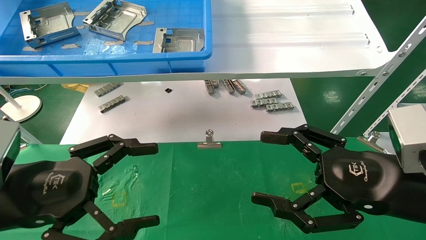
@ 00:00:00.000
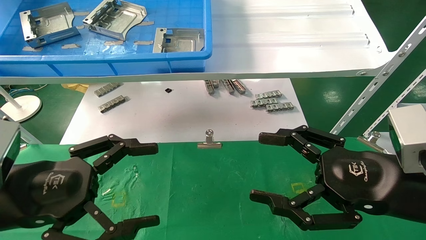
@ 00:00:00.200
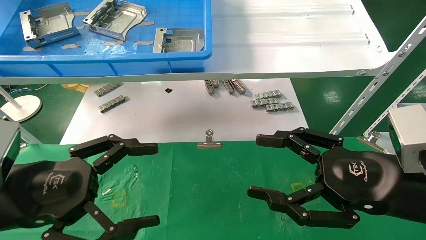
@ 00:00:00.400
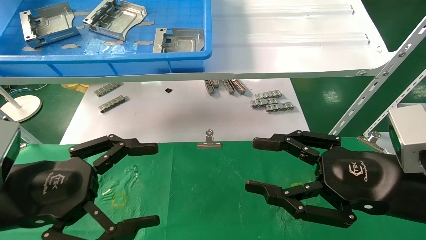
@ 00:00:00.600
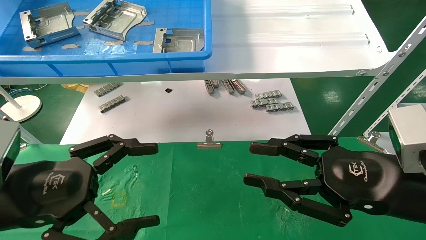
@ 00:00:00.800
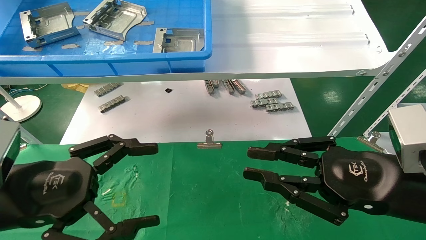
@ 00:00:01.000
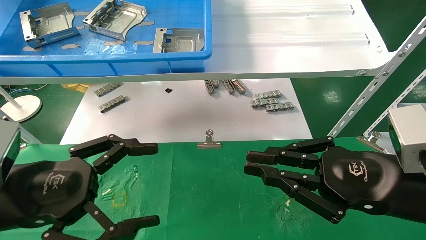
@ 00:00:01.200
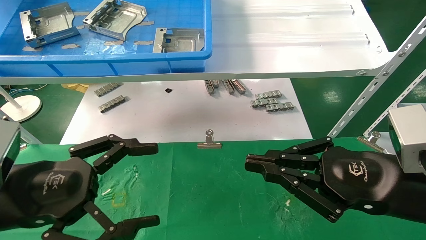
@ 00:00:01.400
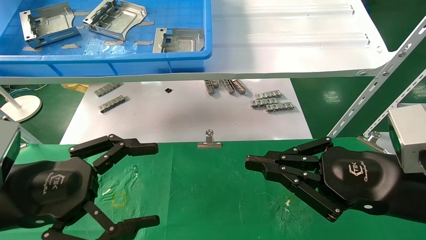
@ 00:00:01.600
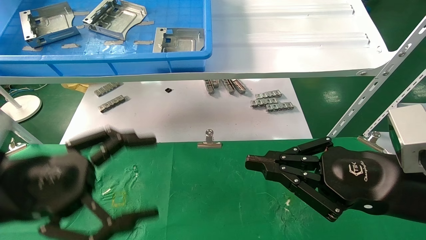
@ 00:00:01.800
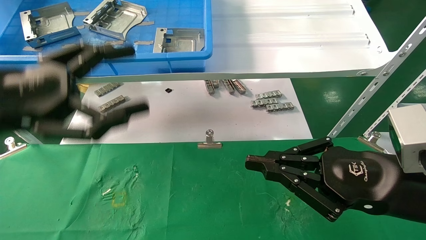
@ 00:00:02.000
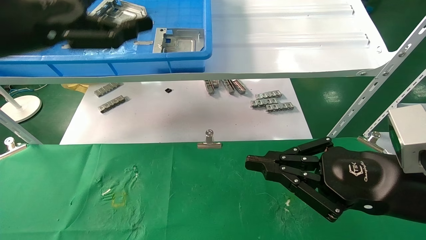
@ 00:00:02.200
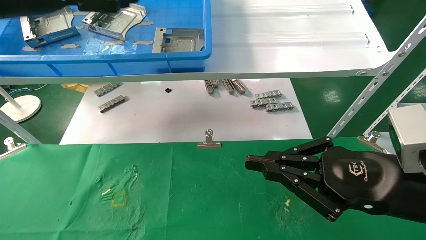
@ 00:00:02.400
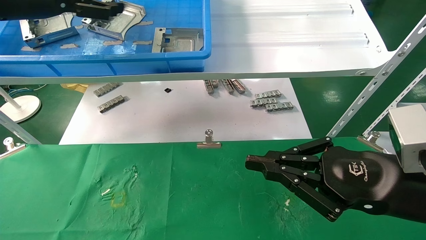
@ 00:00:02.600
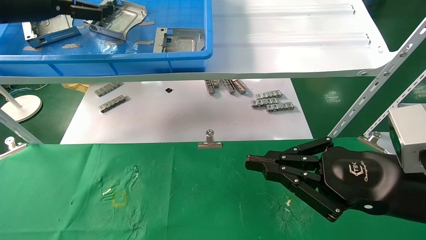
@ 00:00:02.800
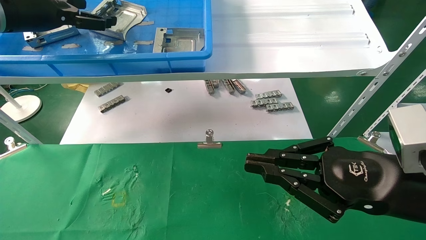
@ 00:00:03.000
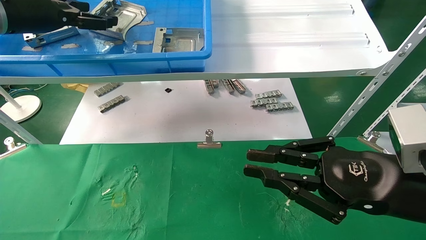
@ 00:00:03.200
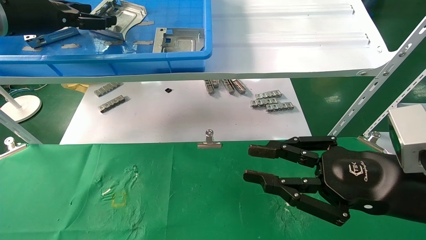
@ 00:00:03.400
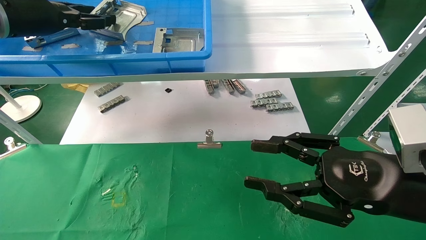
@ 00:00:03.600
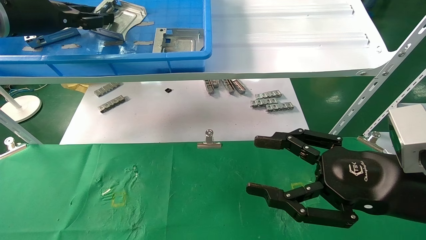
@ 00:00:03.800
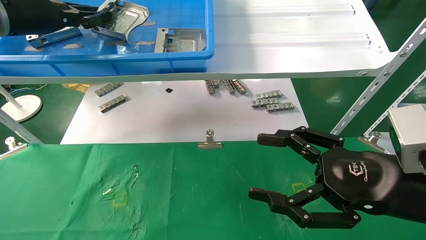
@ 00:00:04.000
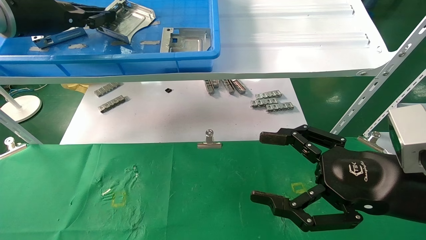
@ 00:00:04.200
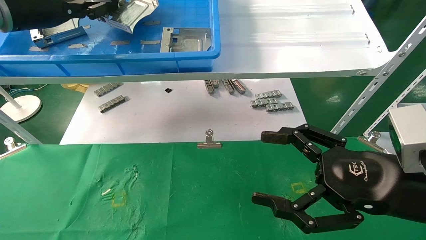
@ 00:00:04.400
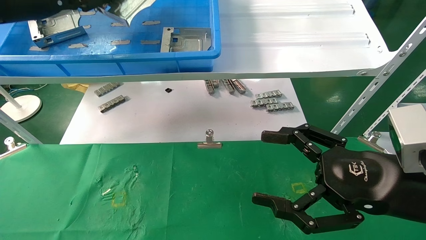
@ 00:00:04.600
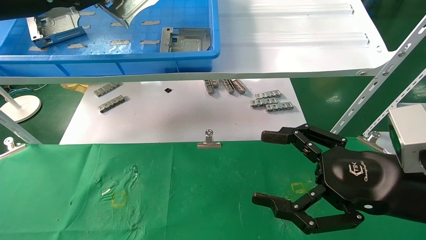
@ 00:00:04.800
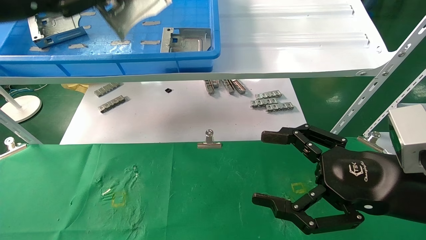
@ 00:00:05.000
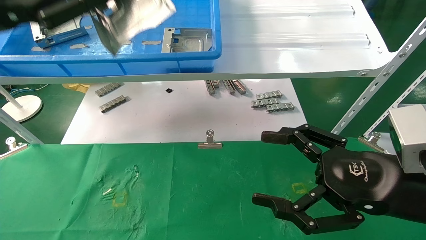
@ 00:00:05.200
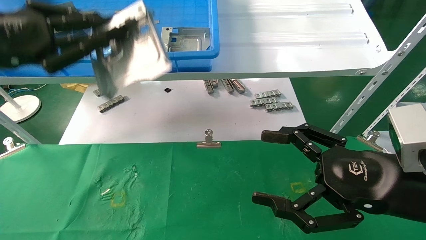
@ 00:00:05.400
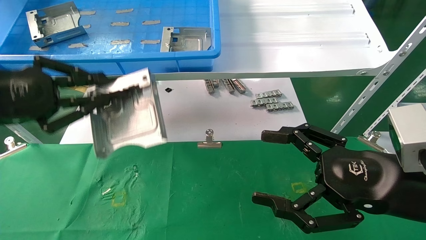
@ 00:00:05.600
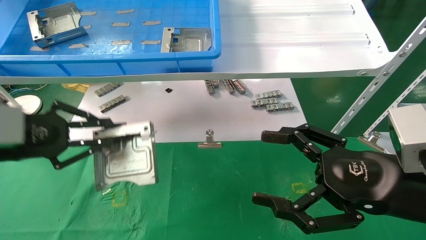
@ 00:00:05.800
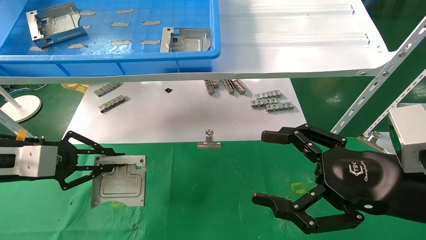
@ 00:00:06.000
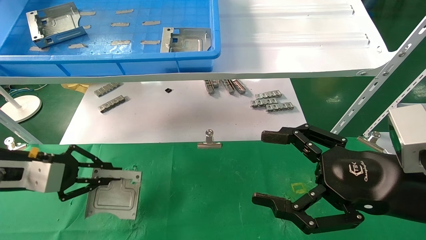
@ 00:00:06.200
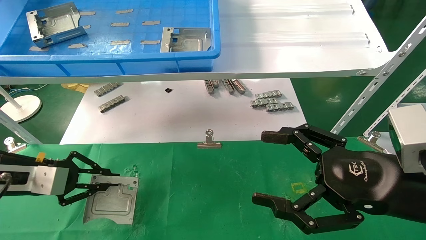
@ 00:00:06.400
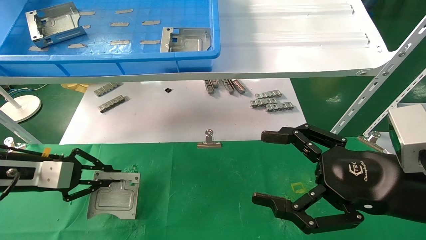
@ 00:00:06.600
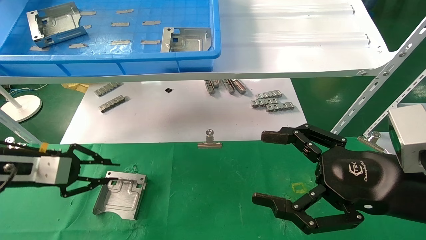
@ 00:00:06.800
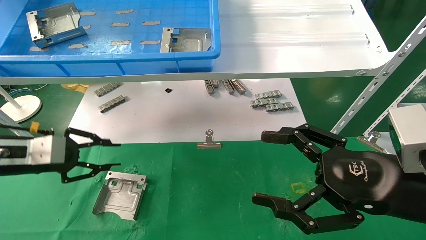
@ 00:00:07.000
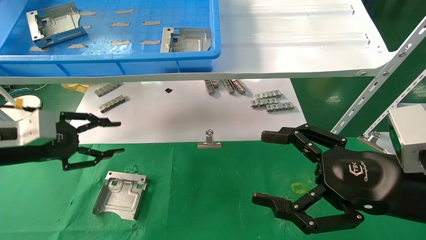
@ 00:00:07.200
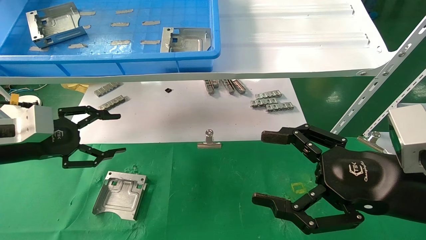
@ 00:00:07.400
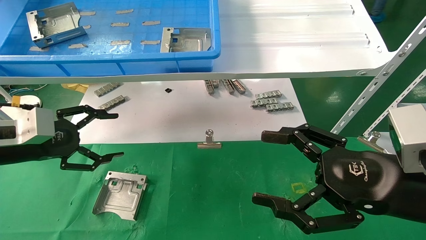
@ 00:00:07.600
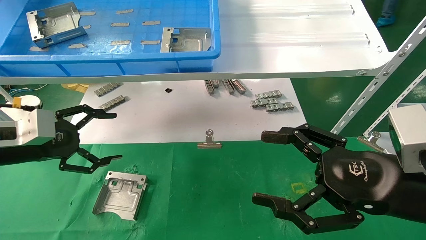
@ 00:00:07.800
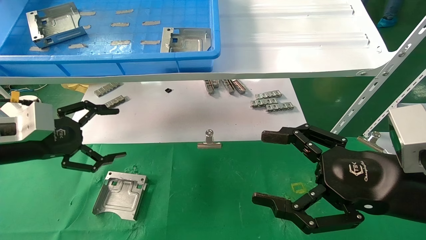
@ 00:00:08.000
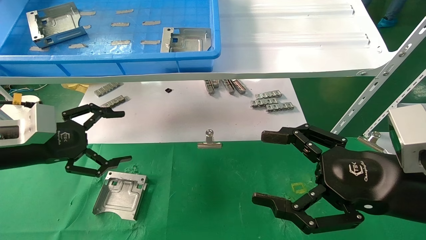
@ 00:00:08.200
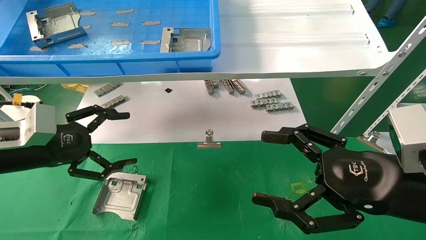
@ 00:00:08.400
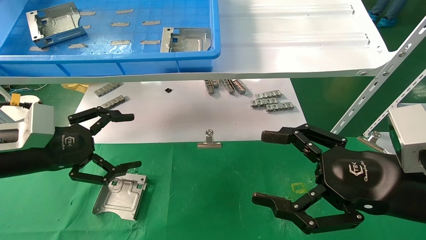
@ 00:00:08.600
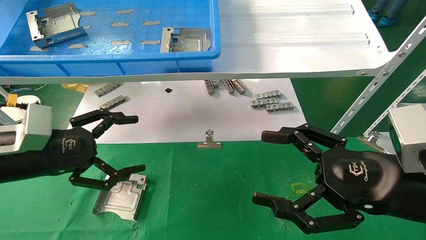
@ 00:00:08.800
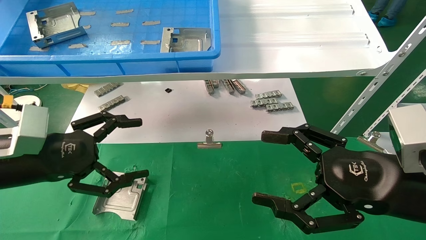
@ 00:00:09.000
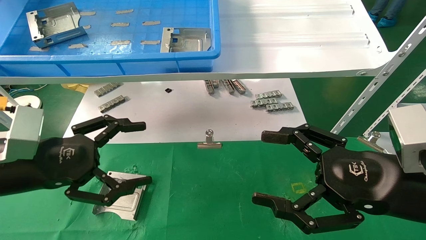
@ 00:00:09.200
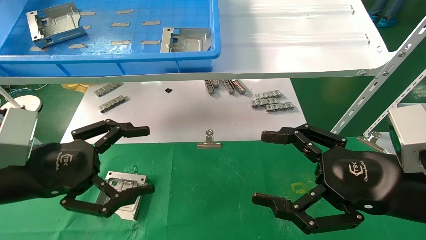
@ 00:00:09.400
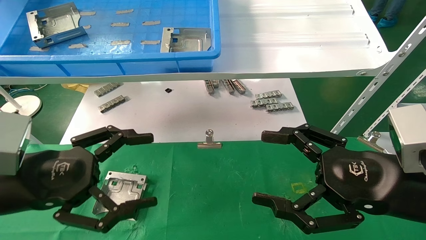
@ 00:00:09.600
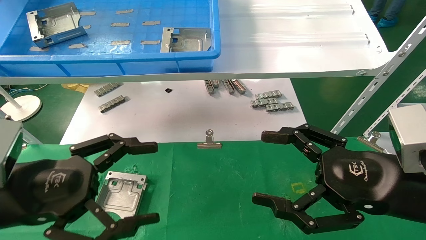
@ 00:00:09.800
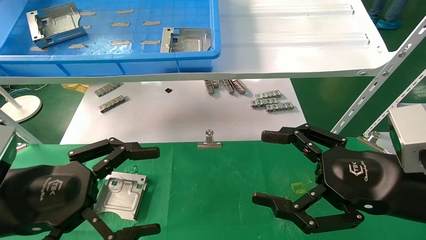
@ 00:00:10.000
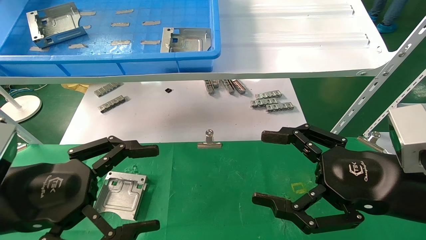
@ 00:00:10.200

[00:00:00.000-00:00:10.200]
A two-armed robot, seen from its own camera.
Task of the whole recording: use the mechanical arm to pick up the parts and place them on the table.
Step, 00:00:02.000 to 00:00:04.000: Pick up the hard drive bracket from the feeding area.
Step, 00:00:04.200 to 00:00:07.200: Place the hard drive bracket into the box.
00:00:00.000 to 00:00:01.400: The right gripper closes.
00:00:01.400 to 00:00:03.000: The left gripper moves upward and forward, roughly 30 cm.
00:00:03.000 to 00:00:04.400: The left gripper closes. The right gripper opens up.
00:00:04.400 to 00:00:05.800: The left gripper moves downward and backward, roughly 20 cm.
00:00:07.200 to 00:00:08.800: The left gripper heads to the right, covering approximately 5 cm, and opens.
00:00:08.800 to 00:00:10.200: The left gripper moves backward, approximately 10 cm.

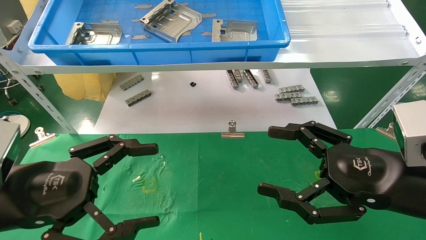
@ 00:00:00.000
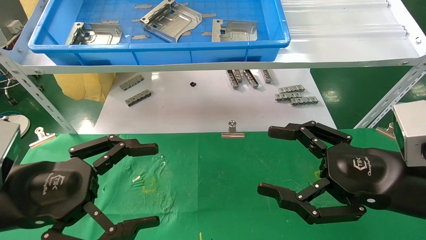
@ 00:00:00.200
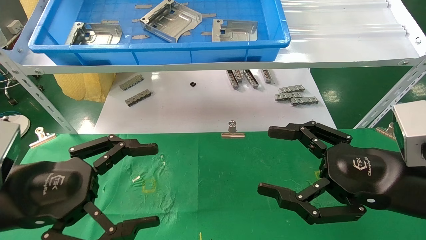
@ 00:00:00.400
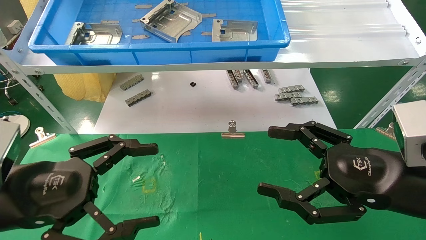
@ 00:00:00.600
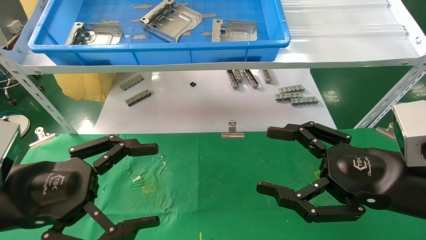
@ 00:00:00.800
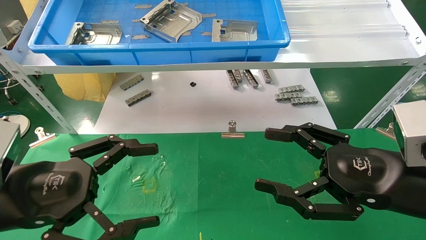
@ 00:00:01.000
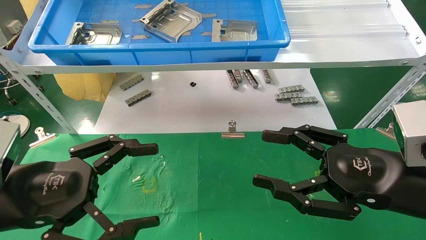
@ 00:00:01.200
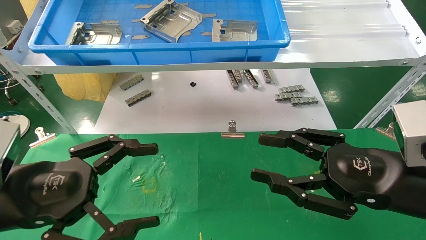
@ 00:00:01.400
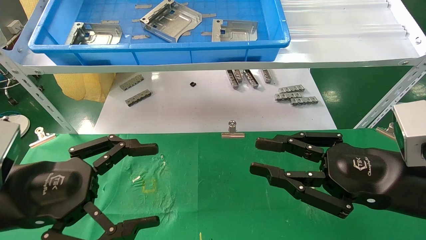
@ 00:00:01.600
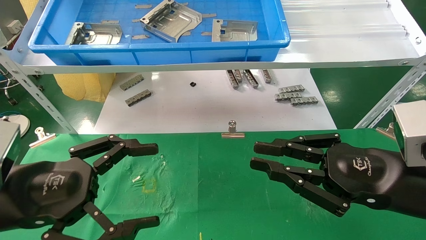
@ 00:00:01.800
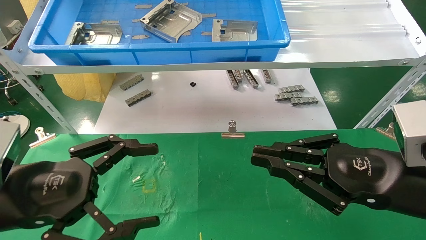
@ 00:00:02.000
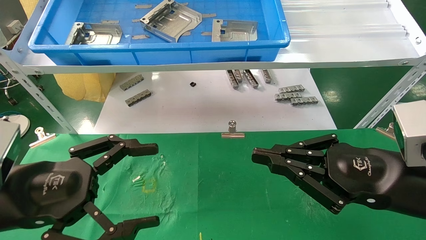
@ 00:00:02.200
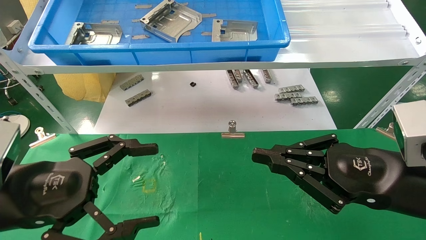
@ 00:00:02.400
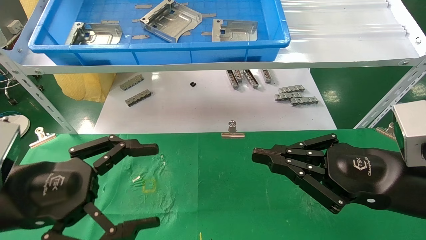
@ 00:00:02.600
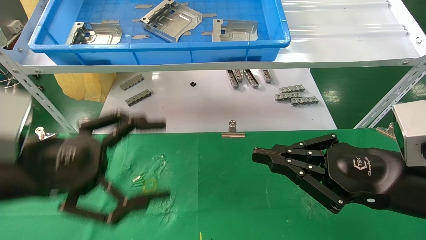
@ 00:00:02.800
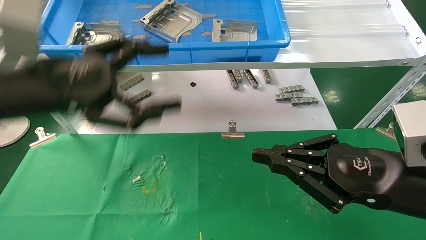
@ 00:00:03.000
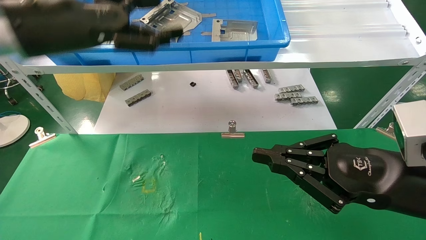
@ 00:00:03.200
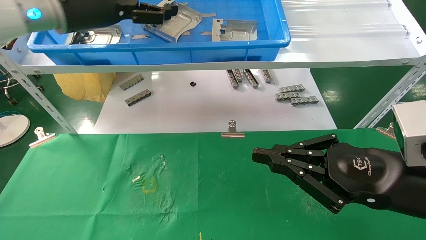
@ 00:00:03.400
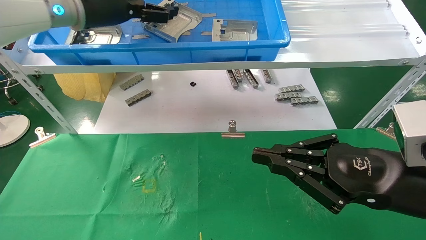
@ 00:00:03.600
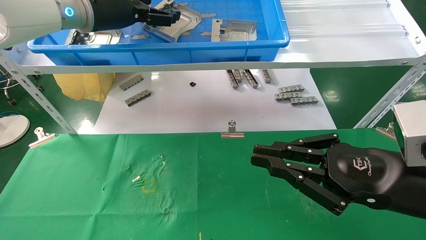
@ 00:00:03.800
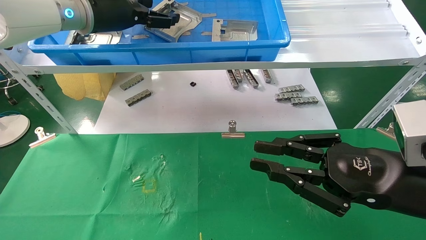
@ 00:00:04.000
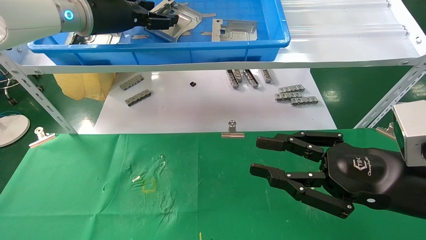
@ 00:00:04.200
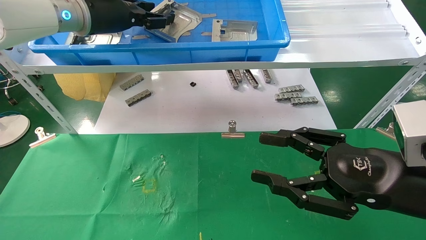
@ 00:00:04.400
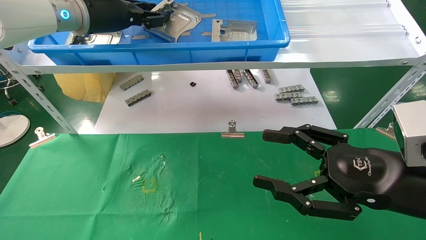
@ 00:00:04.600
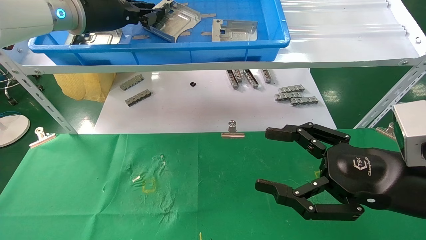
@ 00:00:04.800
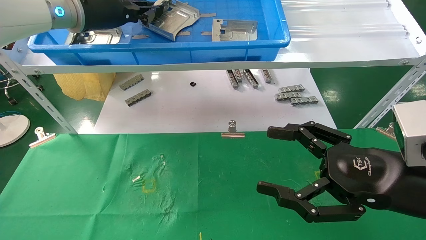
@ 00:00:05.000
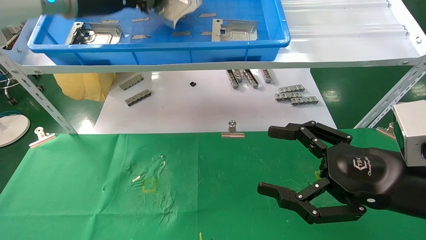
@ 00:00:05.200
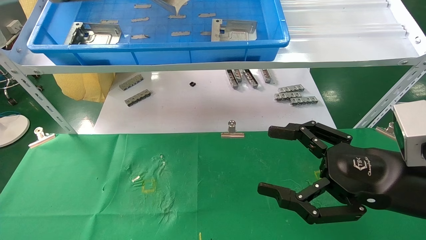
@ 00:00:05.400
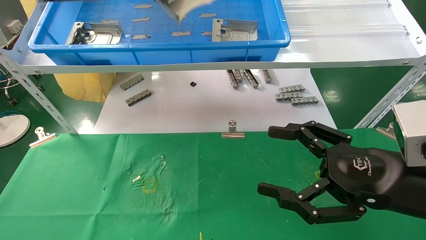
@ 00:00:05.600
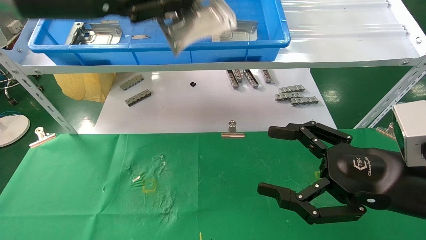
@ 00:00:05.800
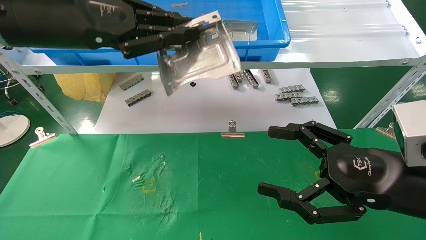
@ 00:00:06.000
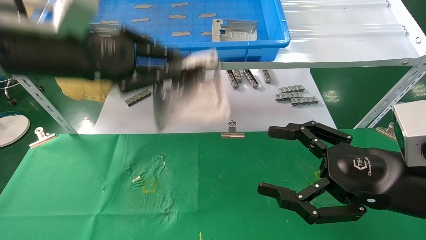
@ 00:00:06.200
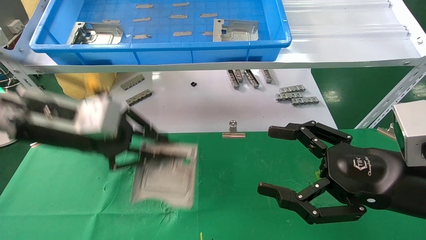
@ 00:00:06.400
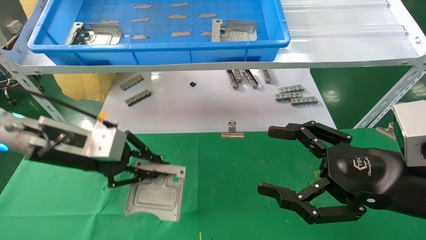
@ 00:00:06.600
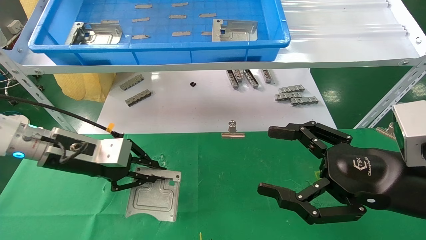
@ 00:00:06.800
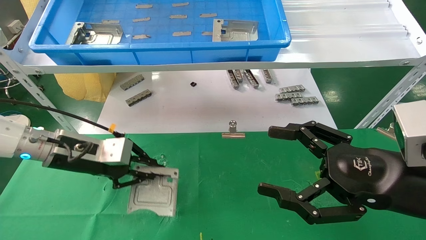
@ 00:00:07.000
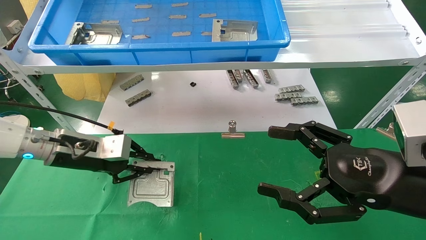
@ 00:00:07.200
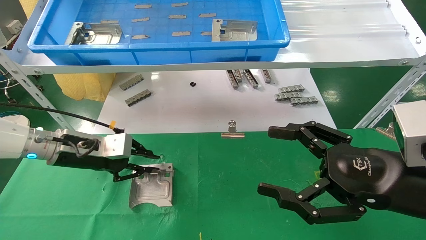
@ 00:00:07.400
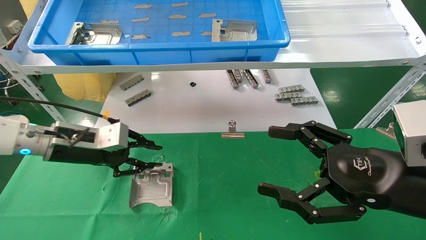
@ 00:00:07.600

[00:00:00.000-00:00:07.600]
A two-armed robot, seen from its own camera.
Task of the whole recording: use the mechanical arm to pick up the parts and place them on the table.
Step, 00:00:03.000 to 00:00:04.800: Pick up the hard drive bracket from the feeding area.
Step, 00:00:05.000 to 00:00:07.400: Place the hard drive bracket into the box.
00:00:00.000 to 00:00:01.600: The right gripper closes.
00:00:01.600 to 00:00:03.000: The right gripper closes its fingers; the left gripper moves upward and forward, approximately 15 cm.
00:00:03.000 to 00:00:04.600: The right gripper opens; the left gripper heads forward and upward, covering about 20 cm, and closes.
00:00:04.600 to 00:00:06.000: The left gripper heads backward, covering about 15 cm, and closes up; the right gripper opens its fingers.
00:00:06.000 to 00:00:07.600: The left gripper travels downward by some 20 cm.
